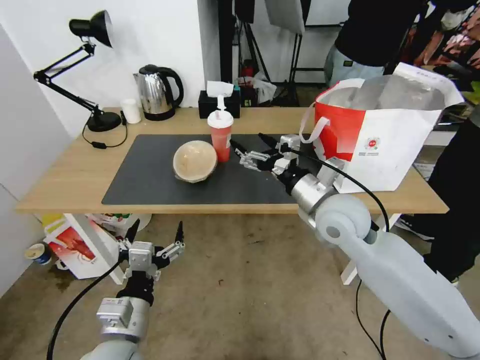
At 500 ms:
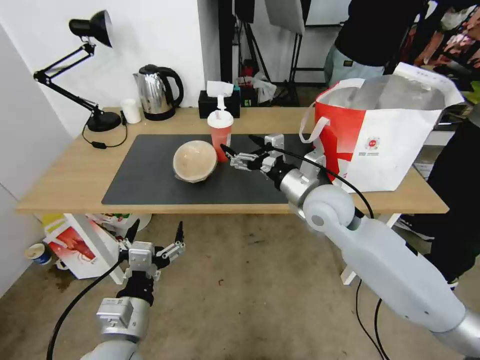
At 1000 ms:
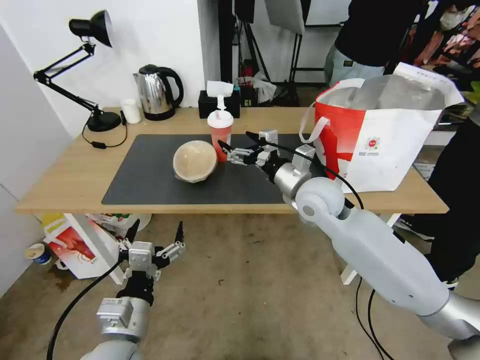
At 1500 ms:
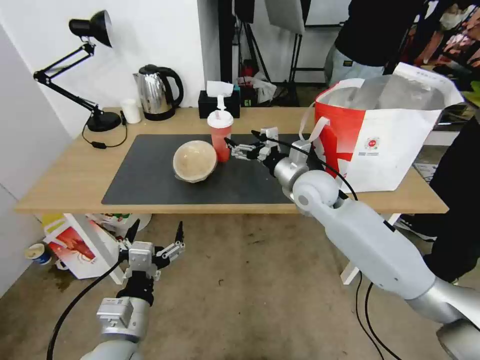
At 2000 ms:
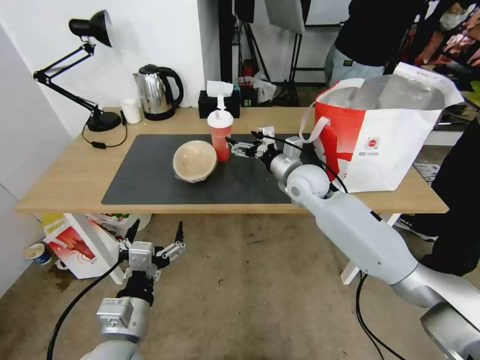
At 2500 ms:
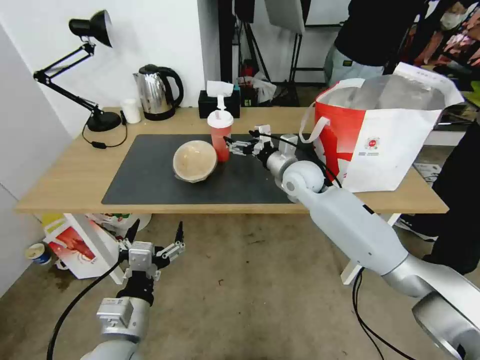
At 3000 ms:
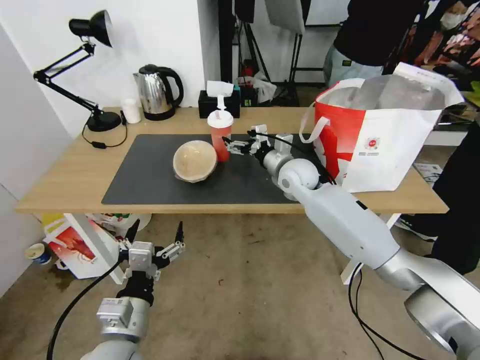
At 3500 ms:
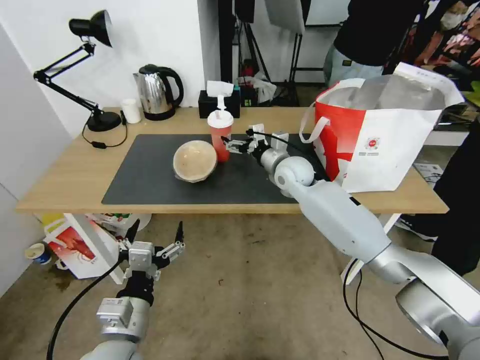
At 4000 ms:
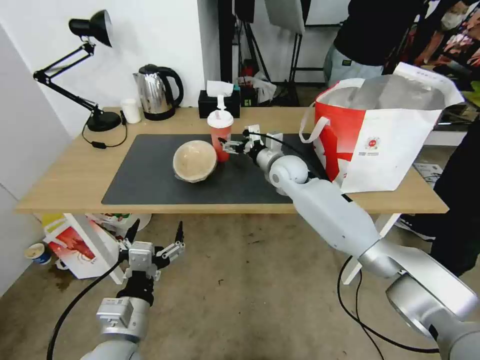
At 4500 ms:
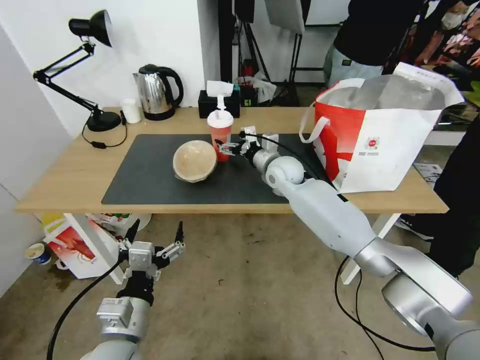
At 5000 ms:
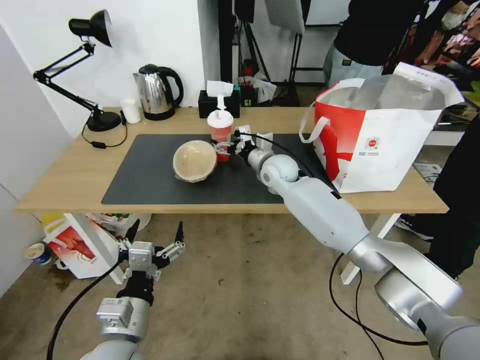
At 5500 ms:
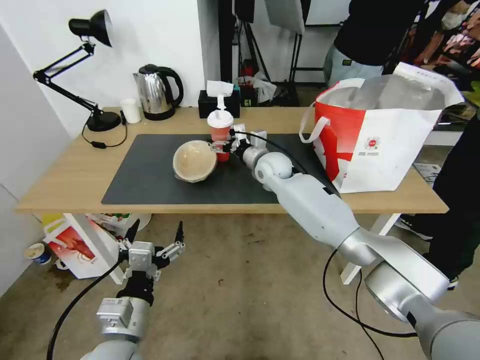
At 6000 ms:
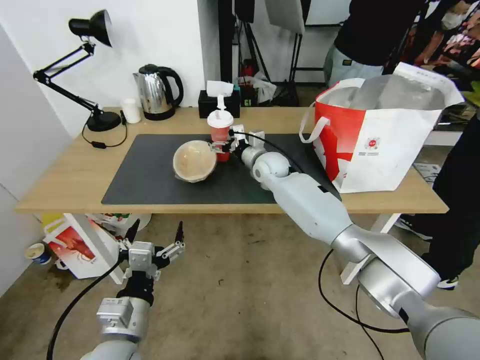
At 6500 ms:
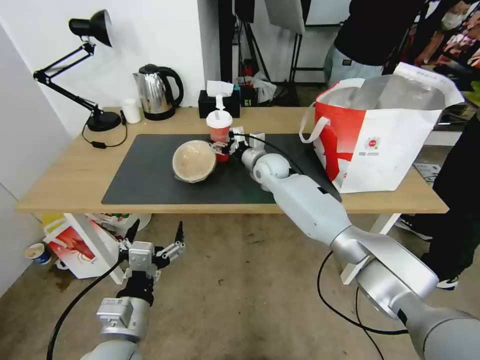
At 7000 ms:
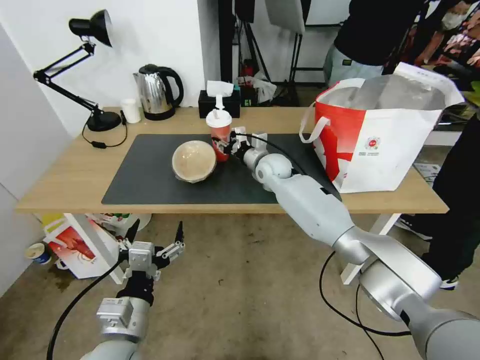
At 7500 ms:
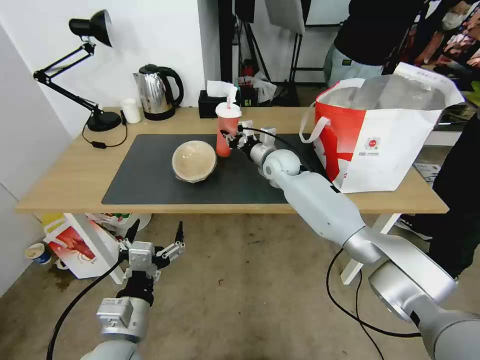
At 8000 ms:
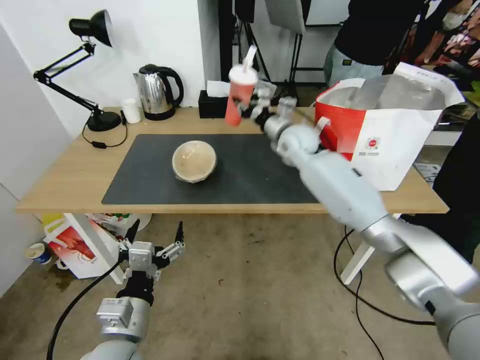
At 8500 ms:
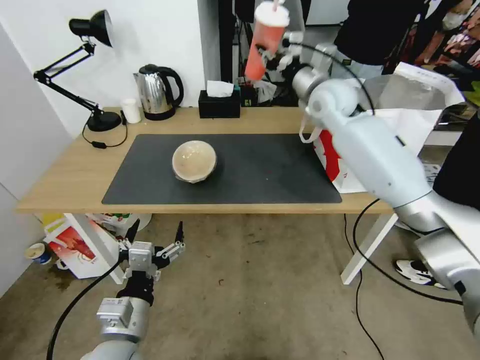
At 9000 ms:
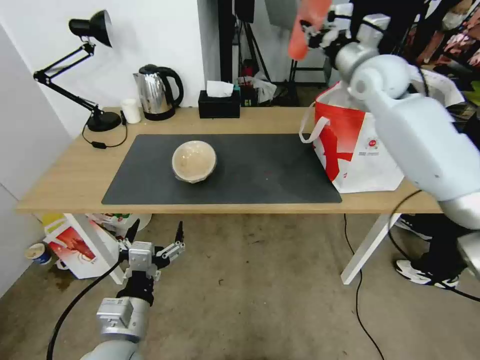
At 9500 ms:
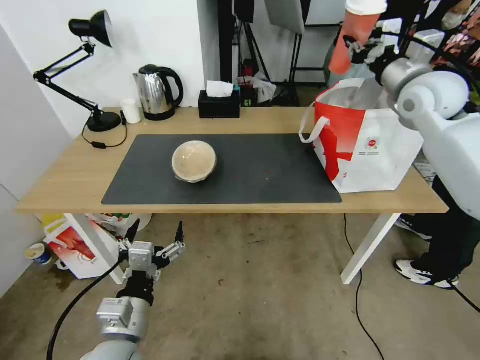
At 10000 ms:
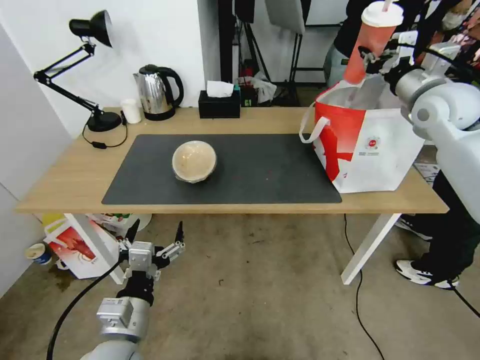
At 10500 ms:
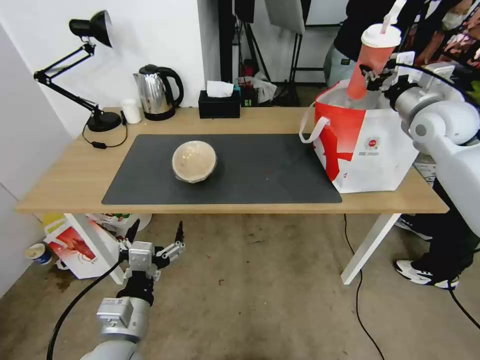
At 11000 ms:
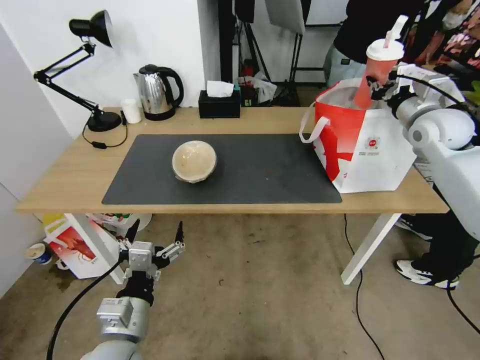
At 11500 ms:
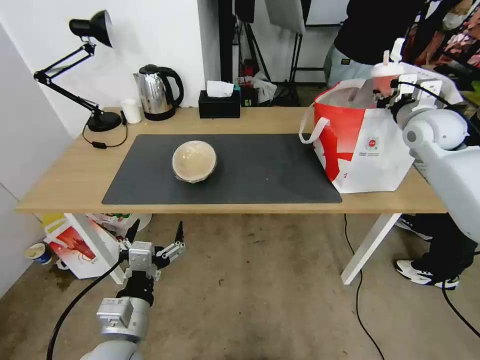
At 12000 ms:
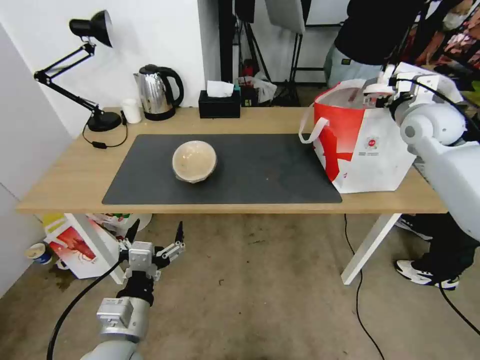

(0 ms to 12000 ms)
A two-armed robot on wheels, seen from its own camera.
Task of the whole recording: Pick up the trash from the table and place it into the takeout bag.
0 ms - 2000 ms: The right gripper shifts about 10 cm forward.
2000 ms - 4000 ms: The right gripper moves forward, approximately 5 cm.
4000 ms - 6000 ms: The right gripper ends up some 5 cm from where it was.
6000 ms - 8000 ms: The right gripper shifts some 10 cm upward and to the right, and closes its fingers.
8000 ms - 10000 ms: The right gripper travels to the right and upward by some 25 cm.
10000 ms - 12000 ms: The right gripper changes place by roughly 5 cm, and opens.

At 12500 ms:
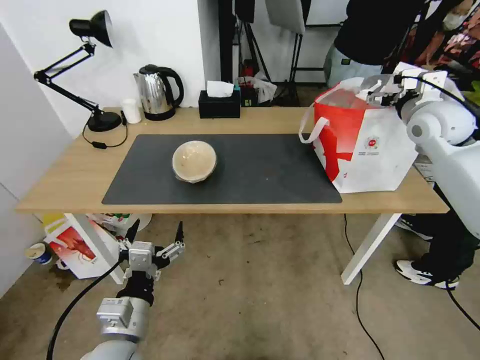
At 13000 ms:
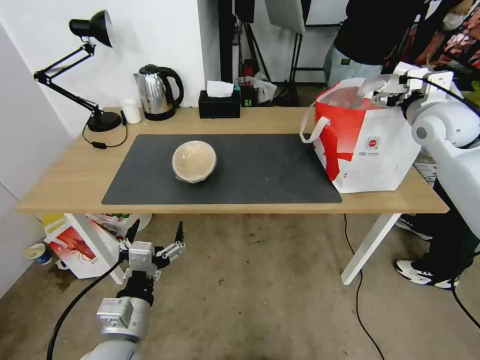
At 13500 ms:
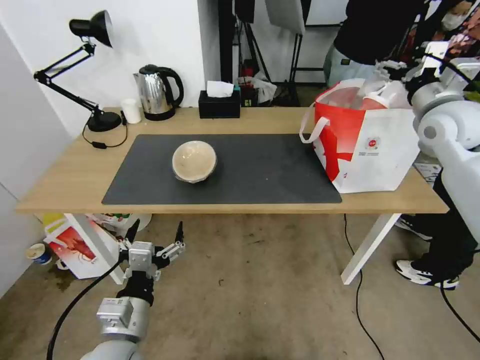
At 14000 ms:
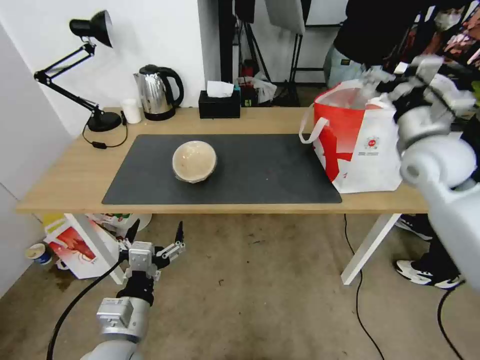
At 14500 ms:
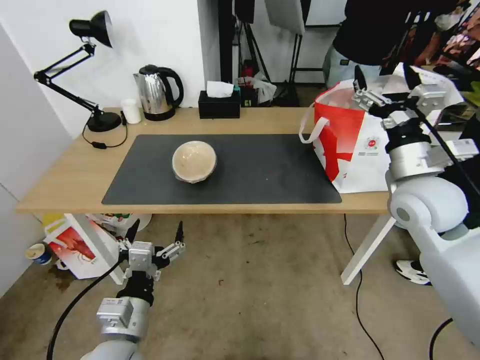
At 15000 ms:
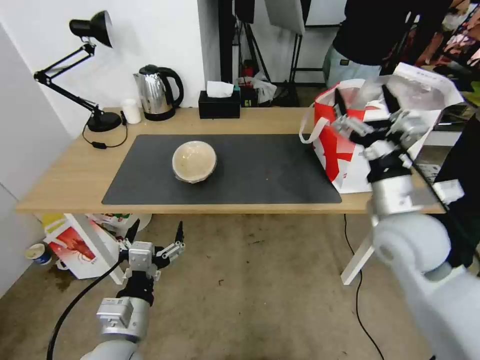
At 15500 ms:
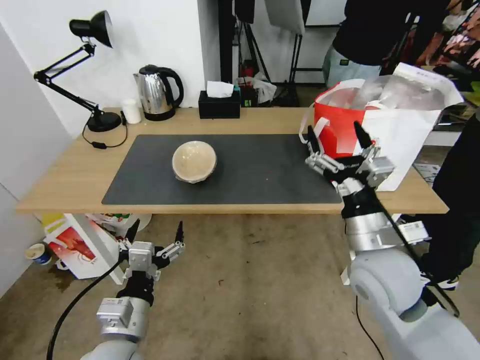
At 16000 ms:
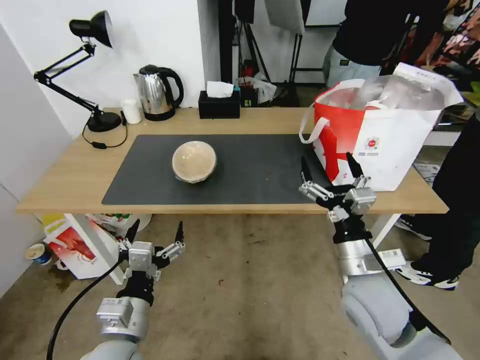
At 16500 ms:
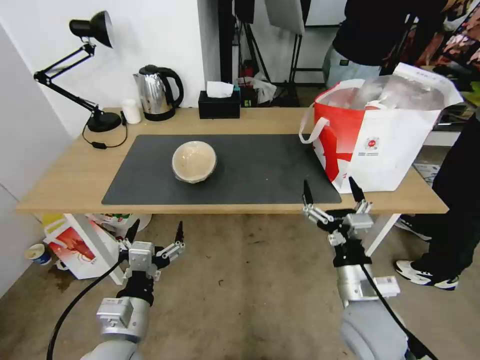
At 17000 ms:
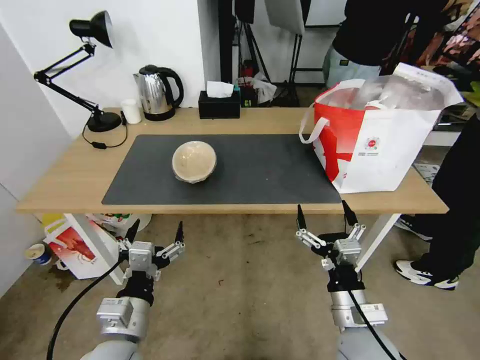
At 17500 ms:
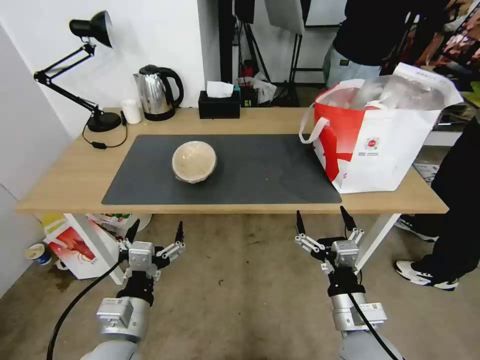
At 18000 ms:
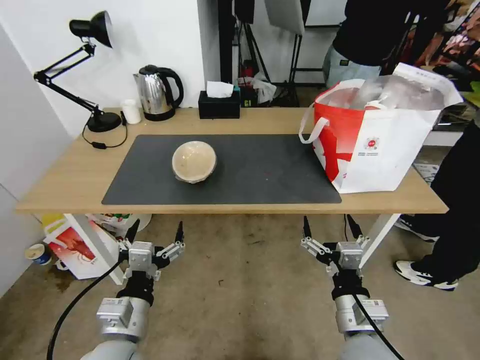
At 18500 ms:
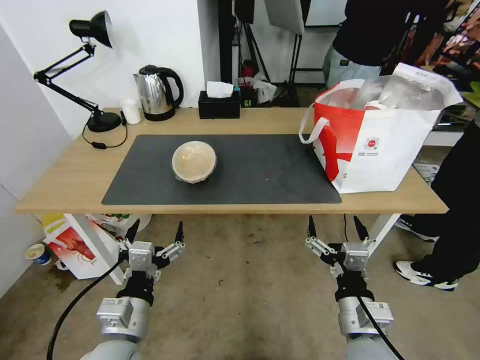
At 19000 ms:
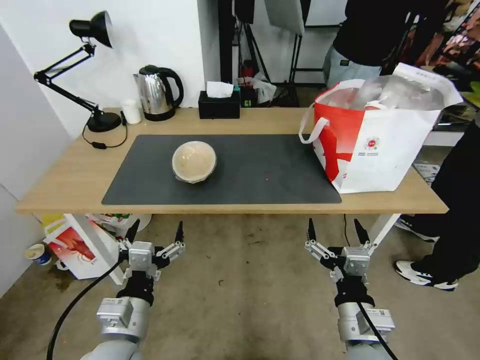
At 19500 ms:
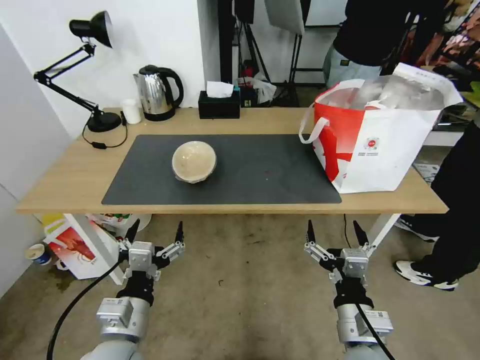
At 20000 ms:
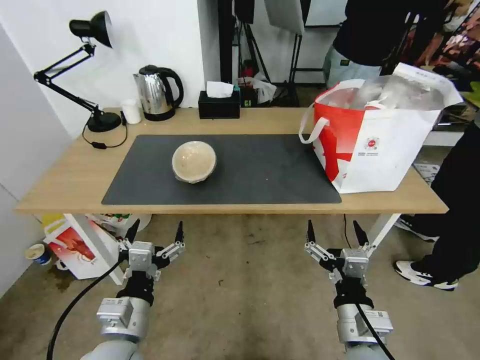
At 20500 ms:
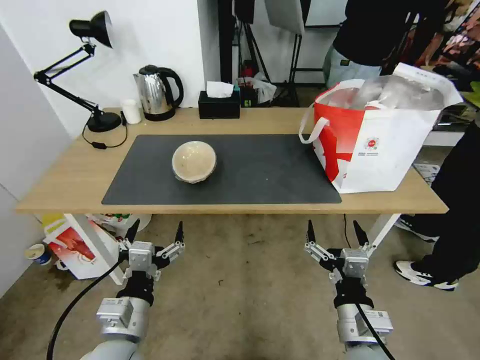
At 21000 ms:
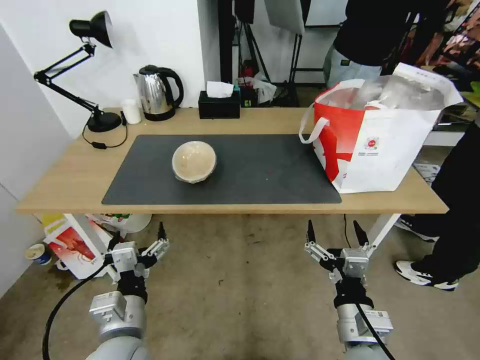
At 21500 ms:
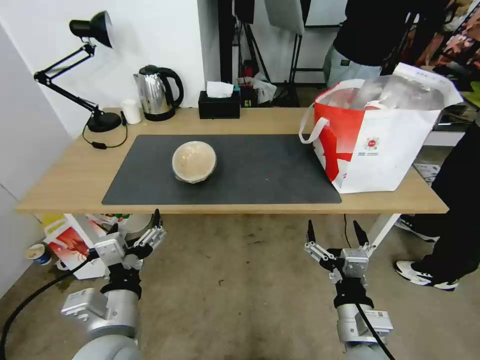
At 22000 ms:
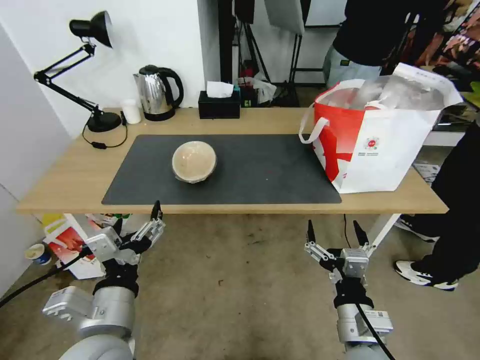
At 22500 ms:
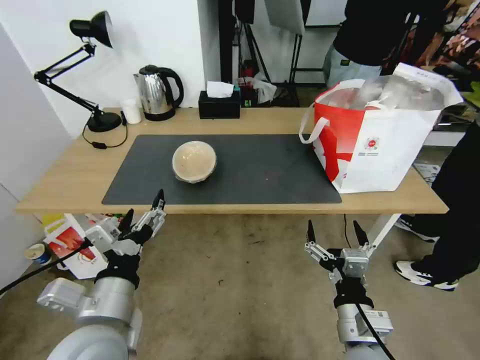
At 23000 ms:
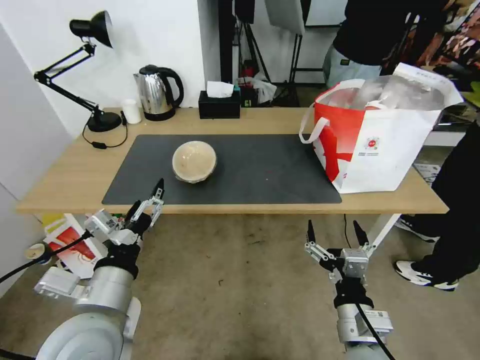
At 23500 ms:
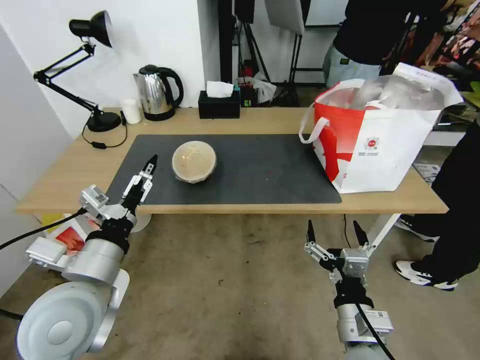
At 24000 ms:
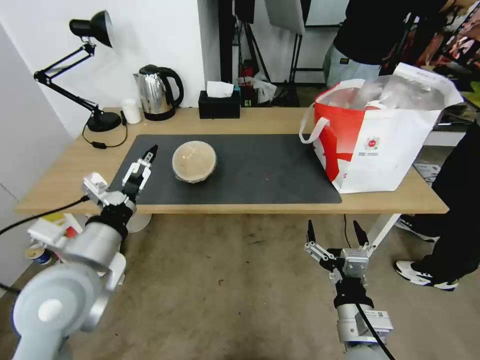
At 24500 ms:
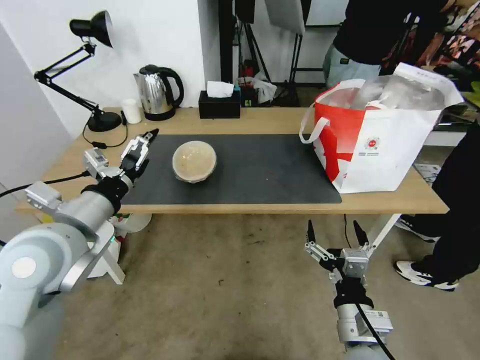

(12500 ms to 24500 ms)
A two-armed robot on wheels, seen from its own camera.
Task of the whole recording: Pick up the trash from the table and place it into the takeout bag.
12500 ms - 14500 ms: The right gripper travels backward, to the left and downward by roughly 20 cm.
14500 ms - 16500 ms: The right gripper heads downward, backward and to the left, covering some 25 cm.
16500 ms - 18500 ms: The right gripper is displaced backward by about 5 cm.
18500 ms - 20500 ms: Both grippers stay about where they are.
20500 ms - 22500 ms: The left gripper travels upward by some 10 cm.
22500 ms - 24500 ms: The left gripper goes some 15 cm forward, upward and to the left.

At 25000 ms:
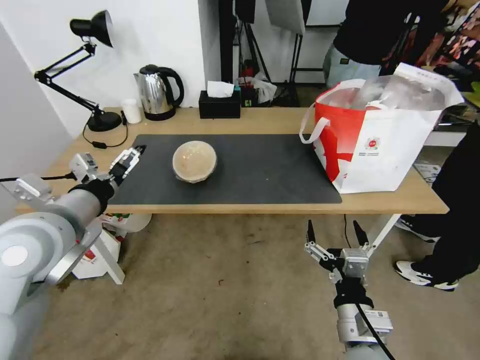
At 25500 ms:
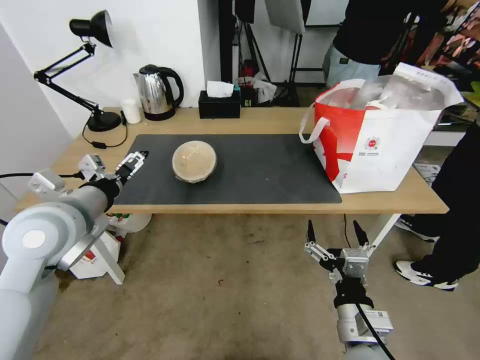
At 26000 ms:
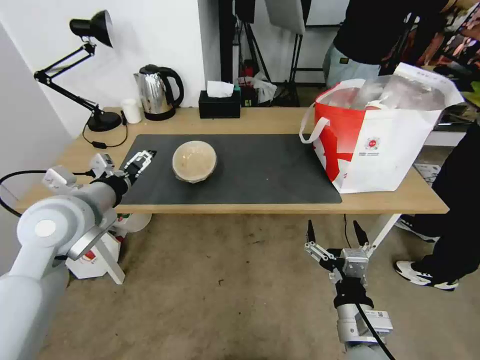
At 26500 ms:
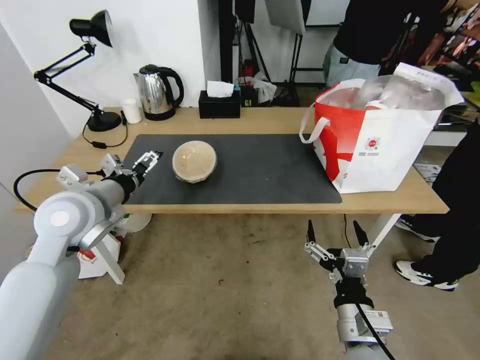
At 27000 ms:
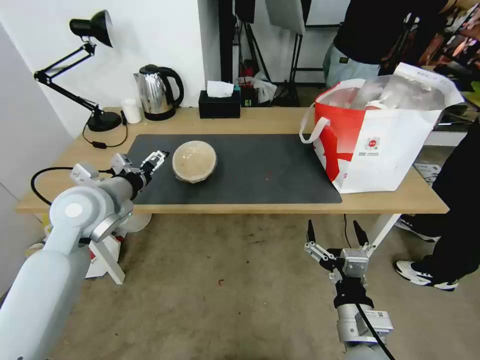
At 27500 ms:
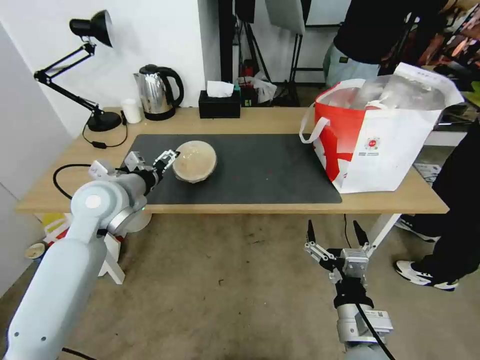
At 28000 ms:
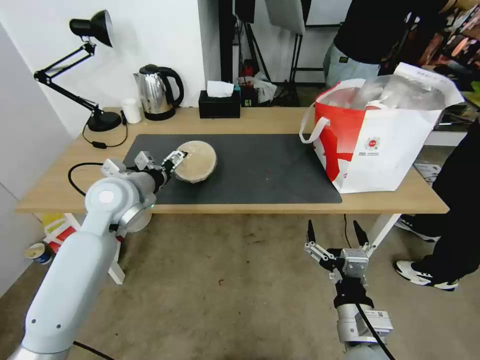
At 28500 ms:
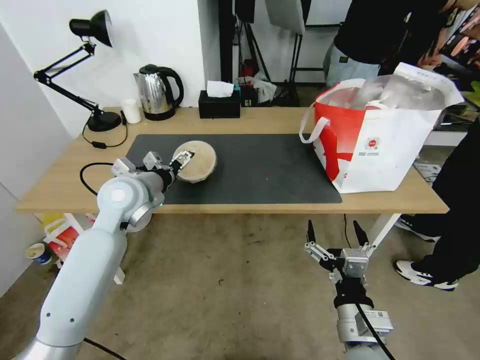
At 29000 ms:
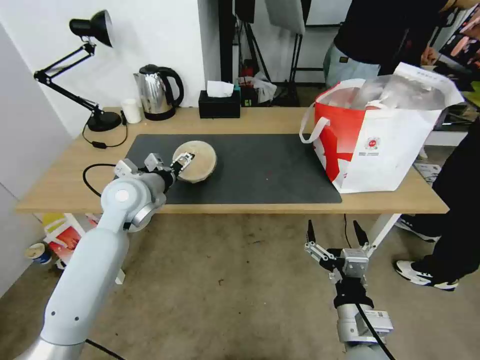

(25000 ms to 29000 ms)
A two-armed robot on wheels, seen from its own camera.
Task of the whole recording: Pick up the trash from the table and place it into the takeout bag.
25000 ms - 27000 ms: The left gripper travels forward by some 10 cm.
27000 ms - 29000 ms: The left gripper shifts roughly 5 cm forward.
